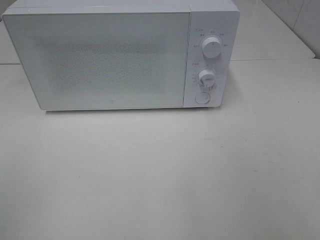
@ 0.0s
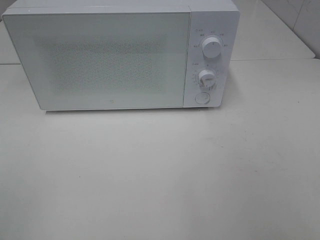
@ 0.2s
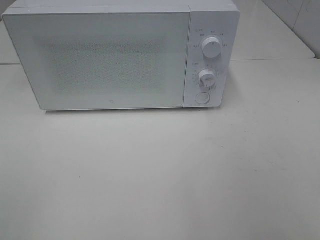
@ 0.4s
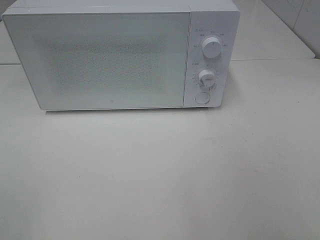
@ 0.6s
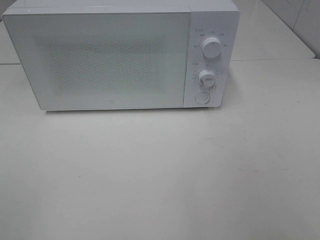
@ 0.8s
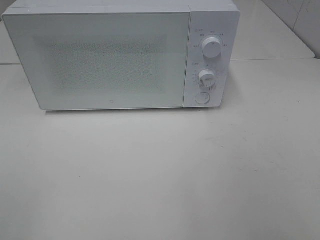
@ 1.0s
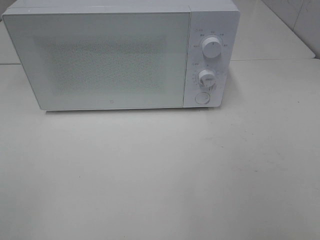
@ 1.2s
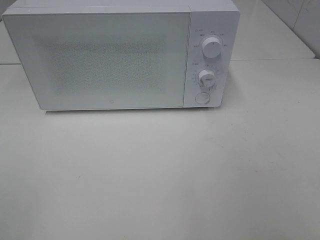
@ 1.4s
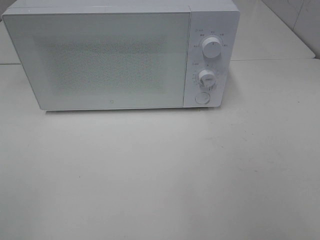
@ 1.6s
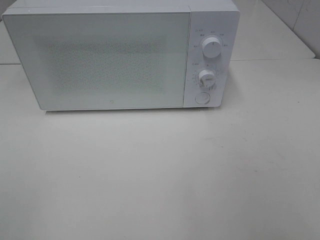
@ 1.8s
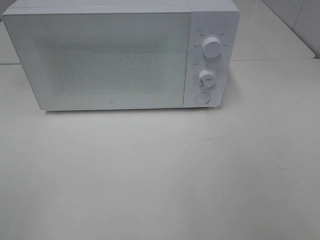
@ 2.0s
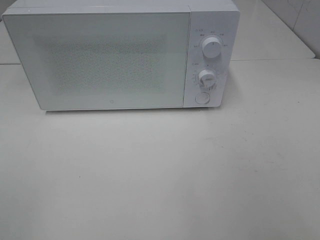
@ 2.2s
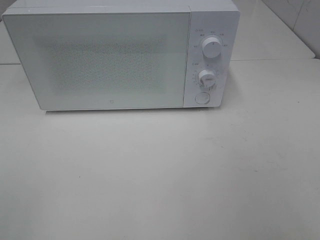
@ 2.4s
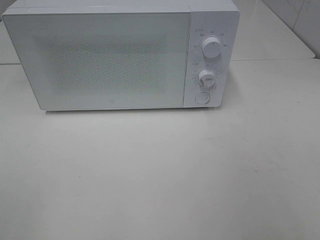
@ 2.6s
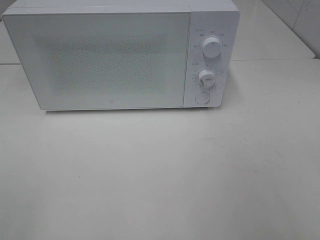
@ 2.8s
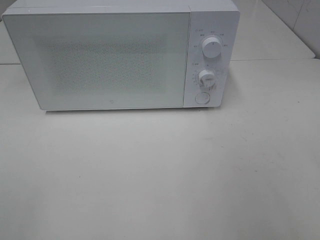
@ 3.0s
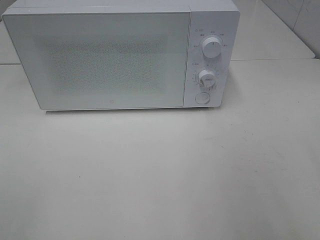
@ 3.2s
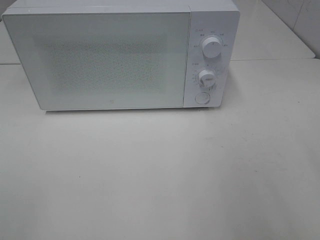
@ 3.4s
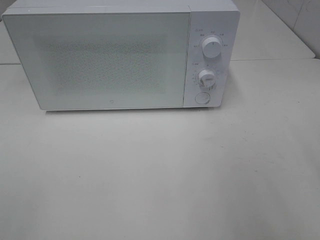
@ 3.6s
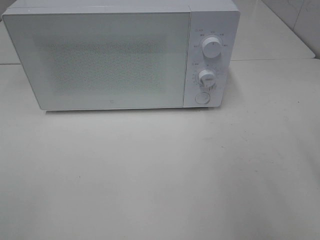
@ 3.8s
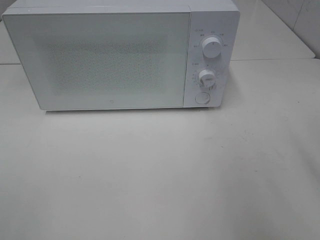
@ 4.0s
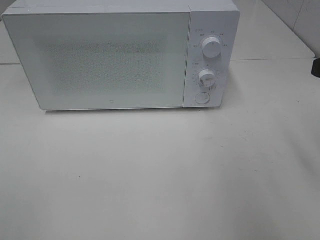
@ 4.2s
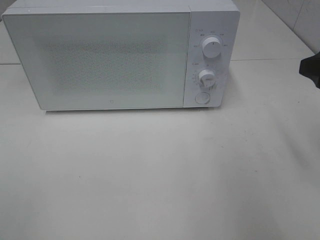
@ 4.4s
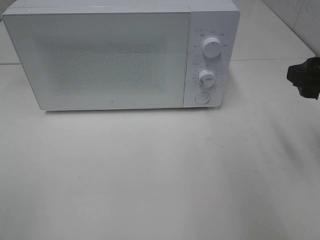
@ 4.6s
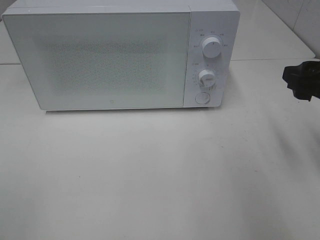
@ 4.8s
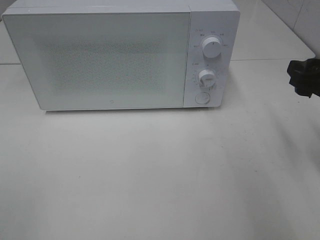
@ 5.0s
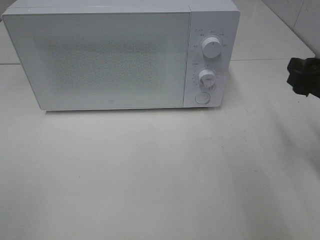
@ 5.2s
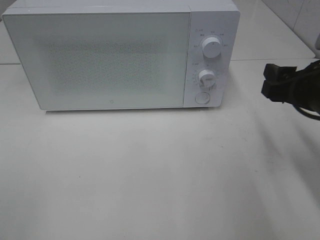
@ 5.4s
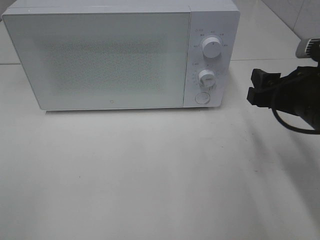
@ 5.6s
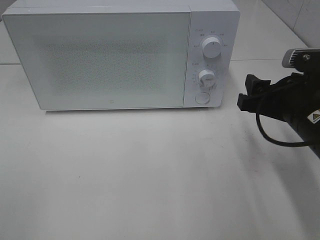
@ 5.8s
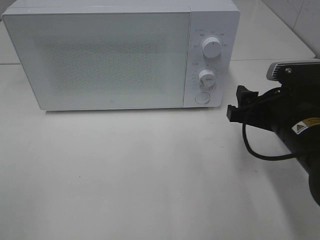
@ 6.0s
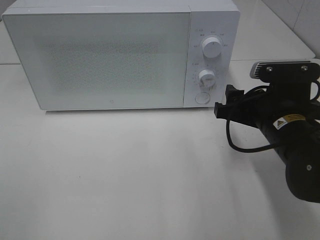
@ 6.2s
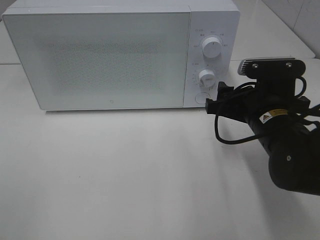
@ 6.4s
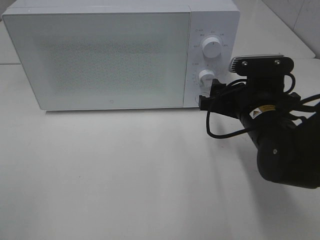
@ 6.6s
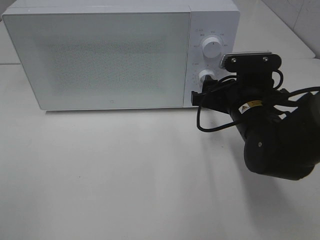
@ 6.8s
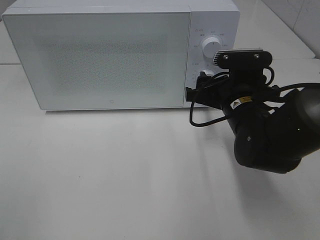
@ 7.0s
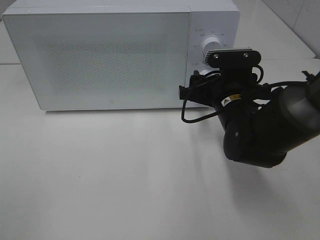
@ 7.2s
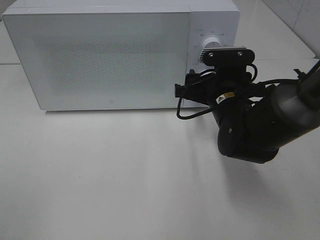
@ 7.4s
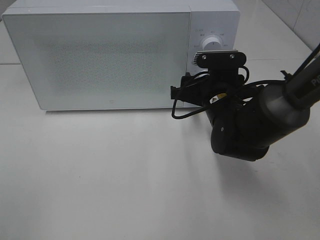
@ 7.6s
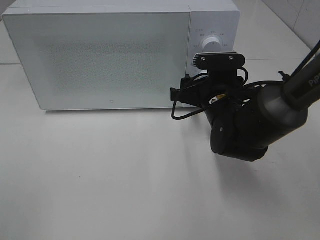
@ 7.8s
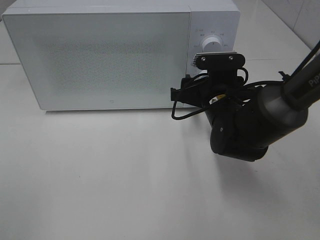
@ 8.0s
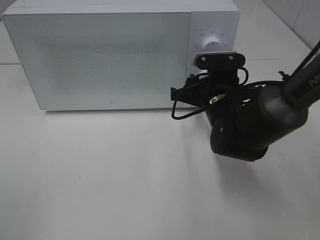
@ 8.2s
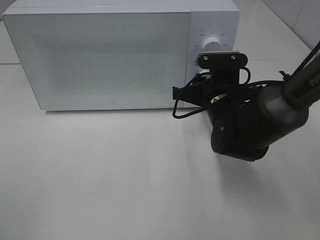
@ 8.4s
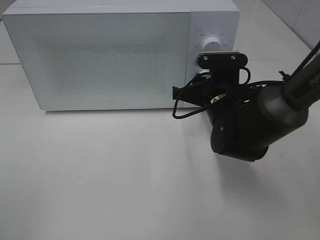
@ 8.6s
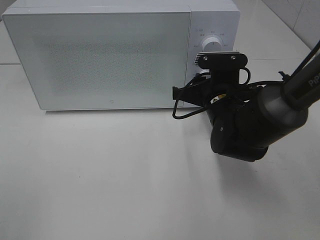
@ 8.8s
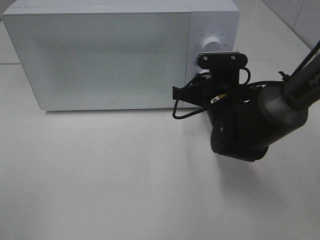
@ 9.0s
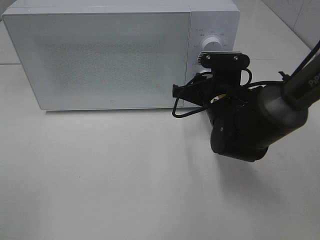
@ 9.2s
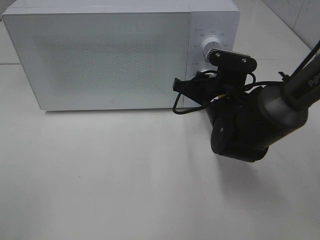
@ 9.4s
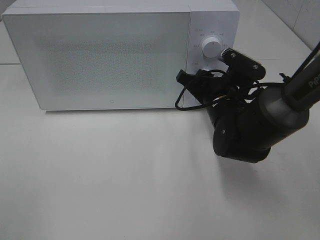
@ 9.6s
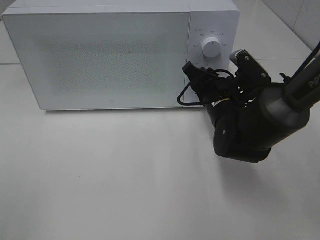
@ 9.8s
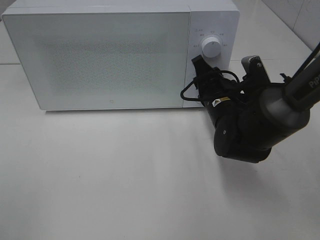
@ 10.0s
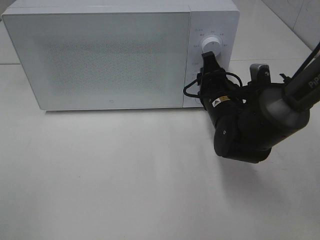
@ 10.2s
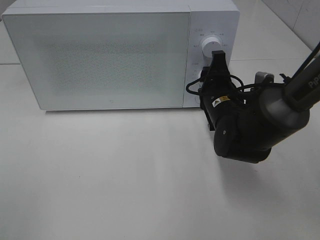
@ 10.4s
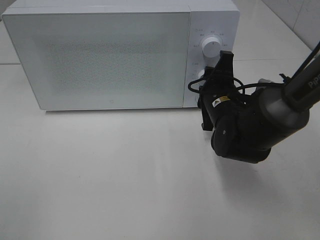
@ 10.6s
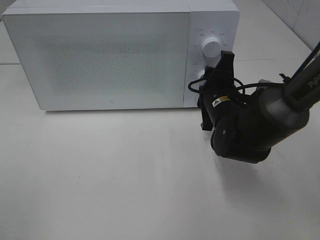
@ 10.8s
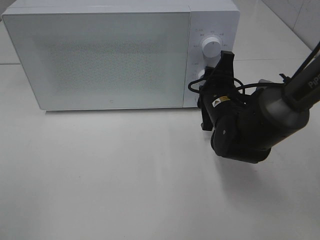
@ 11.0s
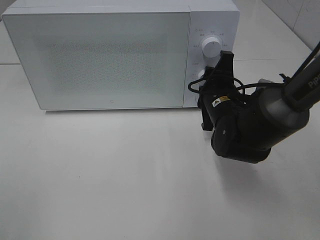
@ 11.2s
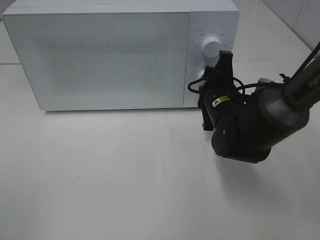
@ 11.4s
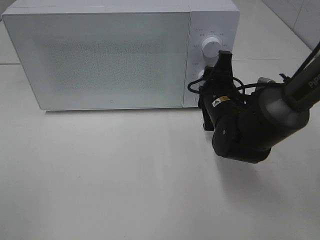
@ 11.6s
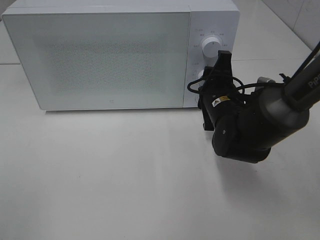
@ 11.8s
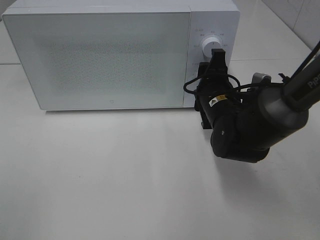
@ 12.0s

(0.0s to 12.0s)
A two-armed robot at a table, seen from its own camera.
Task of the whole recording: Heat Sandwich.
3.0s - 4.4s: The right gripper moves forward, about 15 cm.
4.4s - 6.0s: The right gripper heads downward and to the left, covering roughly 15 cm.
6.0s - 7.6s: The right gripper heads forward and to the left, covering roughly 15 cm.
7.6s - 9.0s: The right gripper closes up.
10.4s - 12.0s: The grippers stay close to where they were, moving slightly.

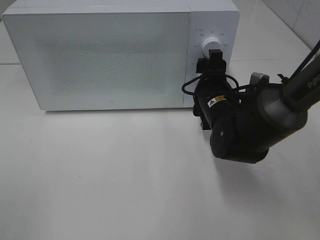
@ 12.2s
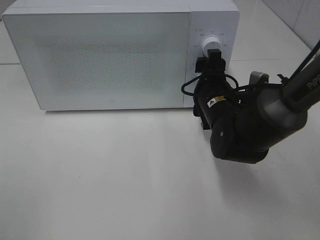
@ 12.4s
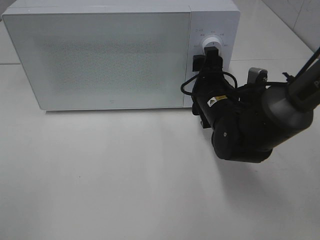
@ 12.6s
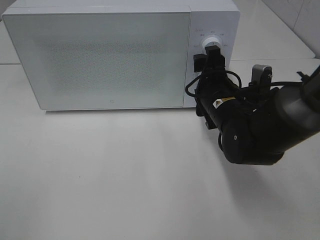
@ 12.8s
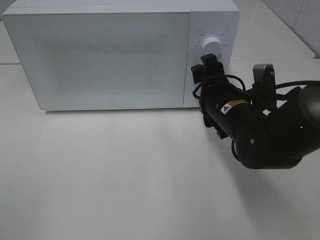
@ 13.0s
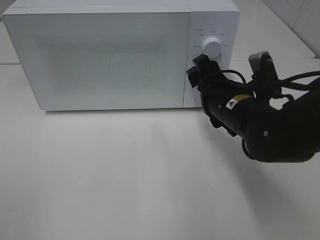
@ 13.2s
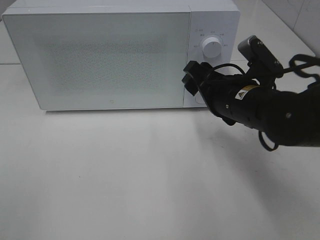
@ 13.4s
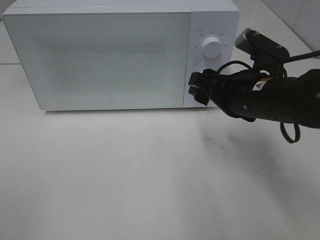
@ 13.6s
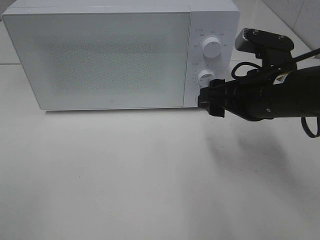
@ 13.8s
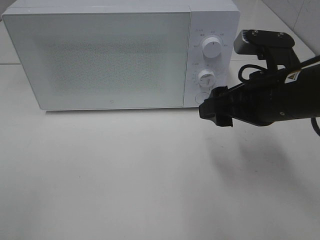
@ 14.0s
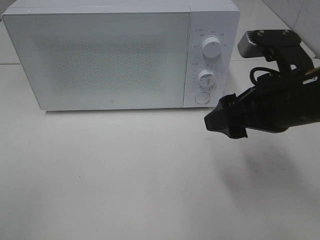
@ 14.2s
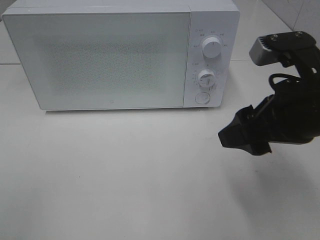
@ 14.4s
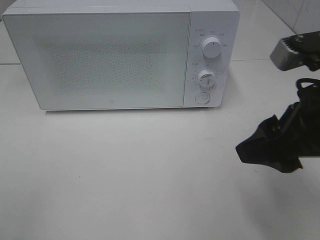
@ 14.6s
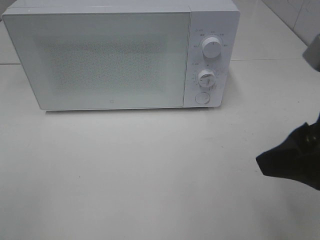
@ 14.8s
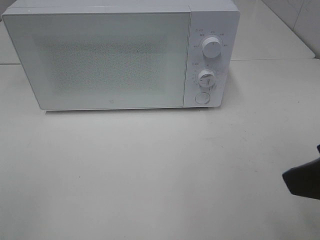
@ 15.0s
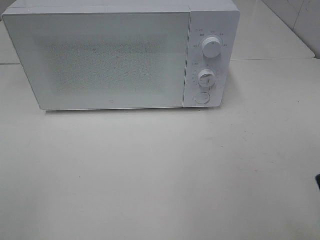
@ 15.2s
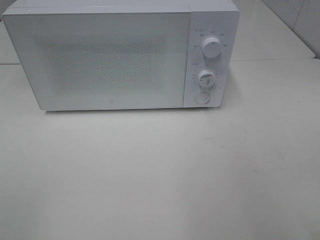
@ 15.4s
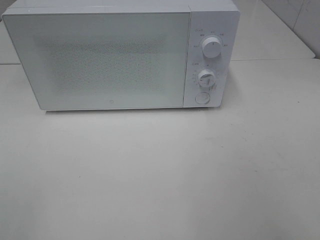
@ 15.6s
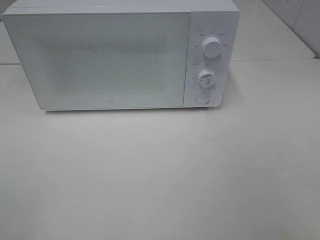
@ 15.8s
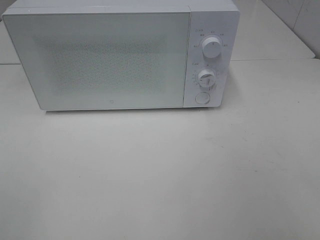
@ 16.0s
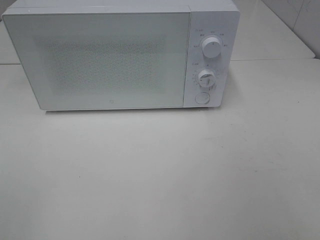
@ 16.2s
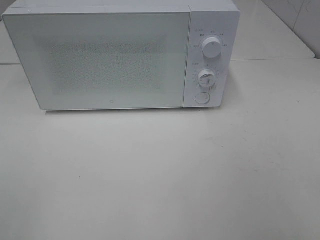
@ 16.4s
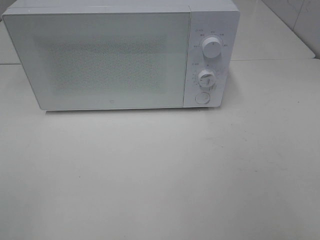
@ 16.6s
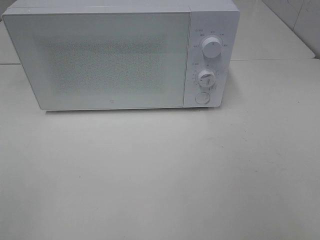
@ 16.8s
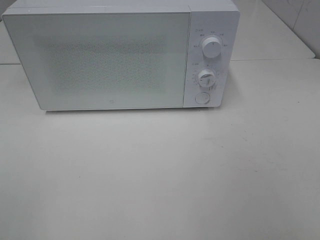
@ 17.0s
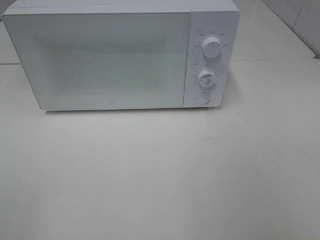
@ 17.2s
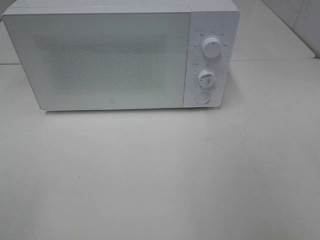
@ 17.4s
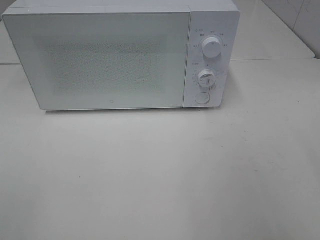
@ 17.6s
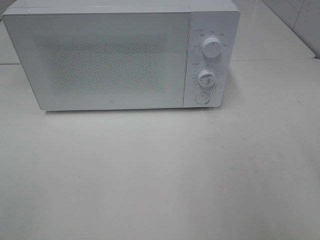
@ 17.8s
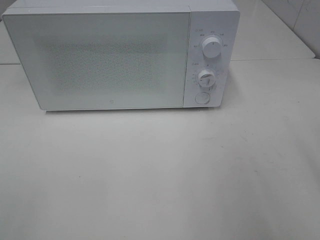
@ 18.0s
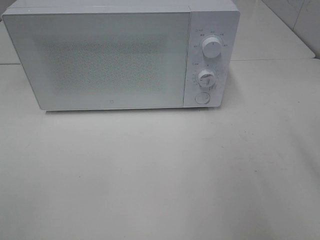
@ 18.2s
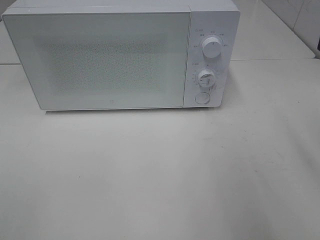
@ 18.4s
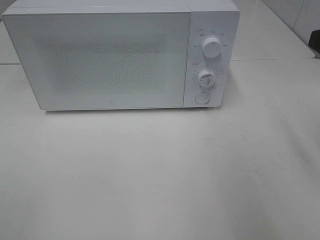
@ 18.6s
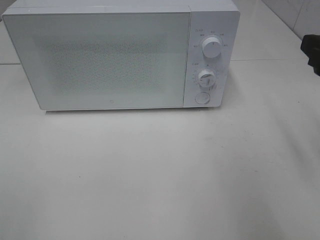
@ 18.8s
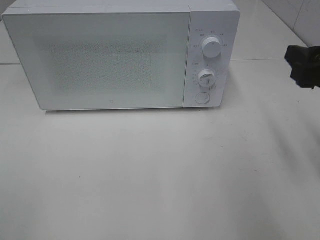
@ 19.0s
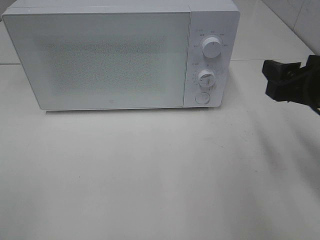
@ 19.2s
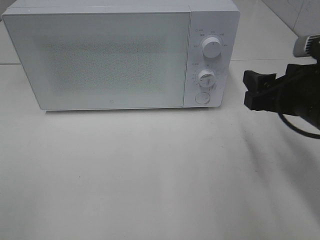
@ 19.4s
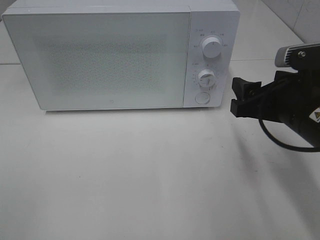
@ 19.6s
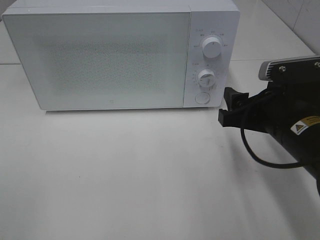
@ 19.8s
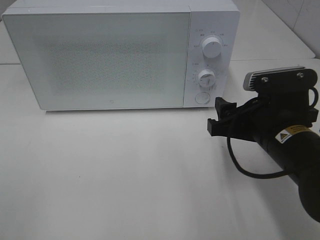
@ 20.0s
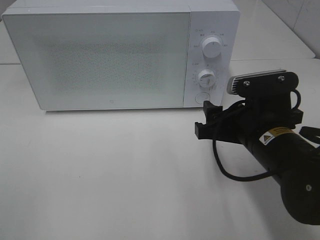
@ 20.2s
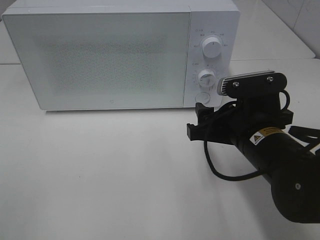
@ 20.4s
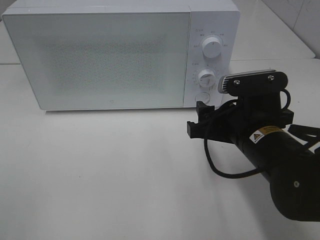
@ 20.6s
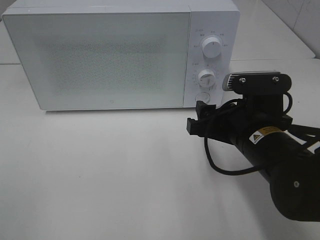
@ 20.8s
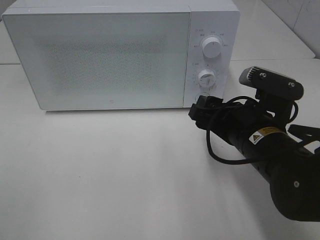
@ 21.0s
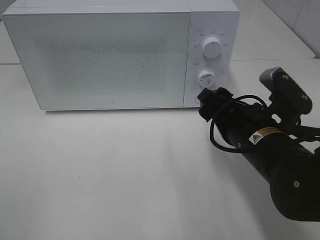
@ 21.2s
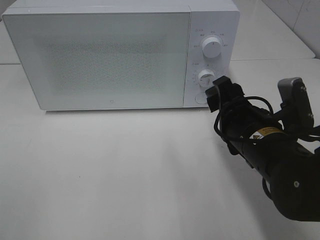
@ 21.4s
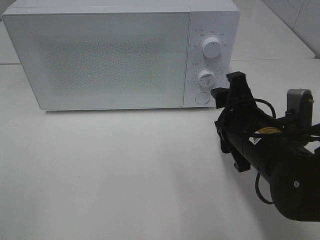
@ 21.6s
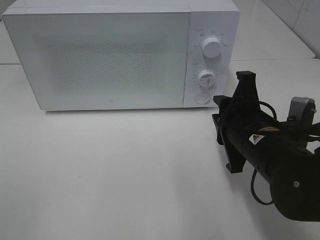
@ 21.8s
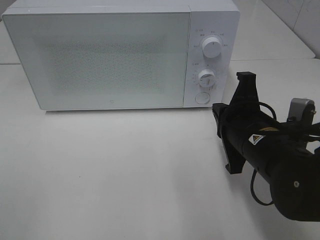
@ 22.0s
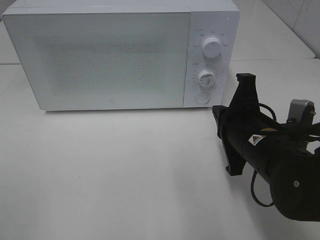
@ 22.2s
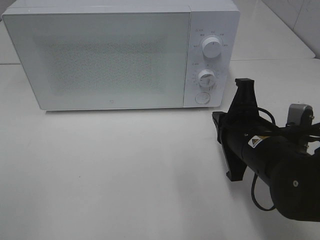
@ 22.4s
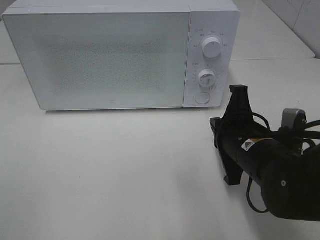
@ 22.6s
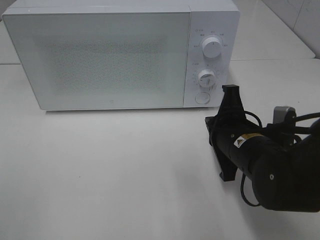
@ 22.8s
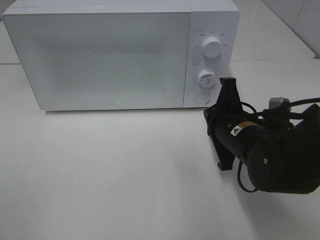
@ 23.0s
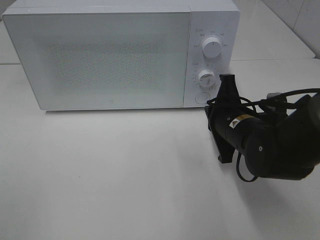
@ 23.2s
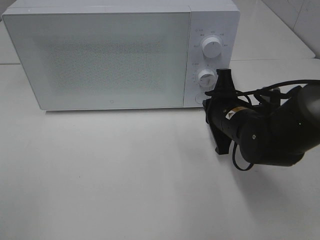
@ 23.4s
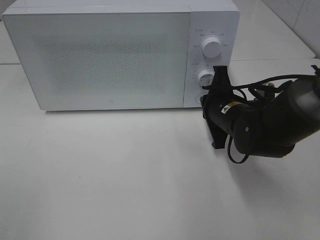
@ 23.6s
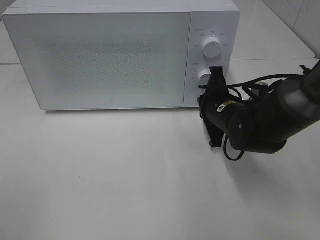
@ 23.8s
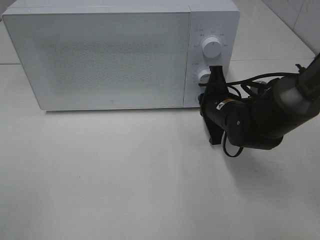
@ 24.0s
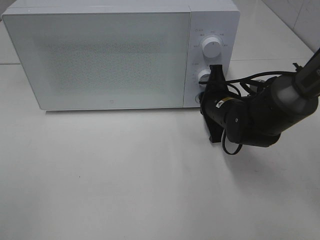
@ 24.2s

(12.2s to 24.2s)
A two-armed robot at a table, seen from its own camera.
Task of the whole recording: Heat Sandwich.
12.2s - 13.8s: The right gripper travels upward, backward and to the right by about 10 cm.
13.8s - 15.2s: The right gripper moves backward, upward and to the right, roughly 20 cm.
18.2s - 19.8s: The right gripper moves downward, to the left and forward, about 15 cm.
21.2s - 22.6s: The right gripper closes its fingers.
22.6s - 24.2s: The right gripper heads forward, covering some 15 cm.
